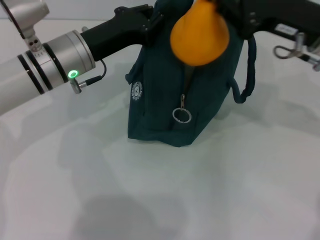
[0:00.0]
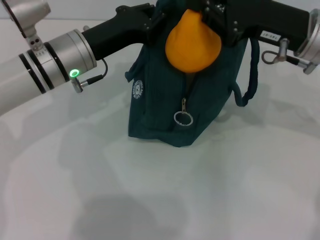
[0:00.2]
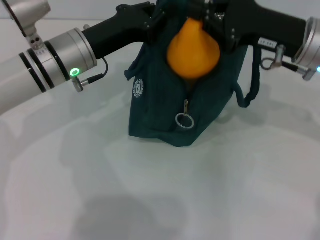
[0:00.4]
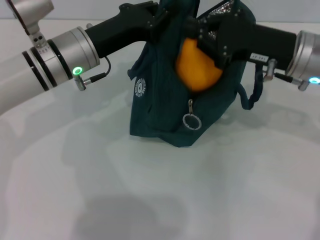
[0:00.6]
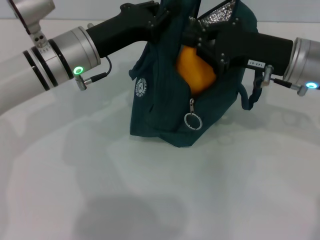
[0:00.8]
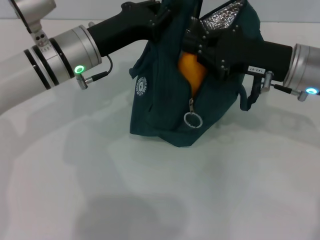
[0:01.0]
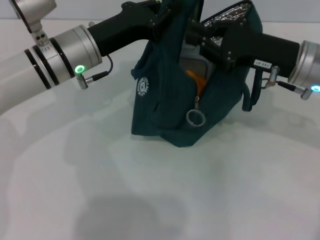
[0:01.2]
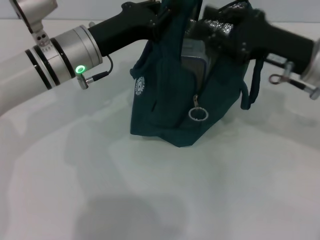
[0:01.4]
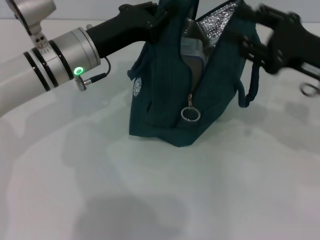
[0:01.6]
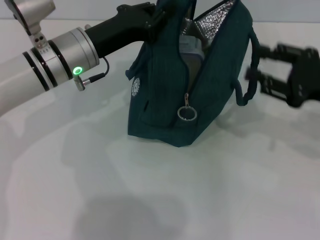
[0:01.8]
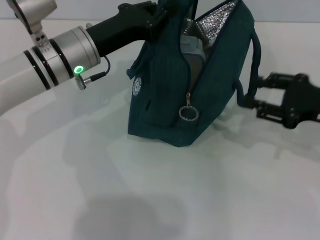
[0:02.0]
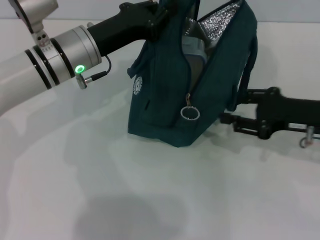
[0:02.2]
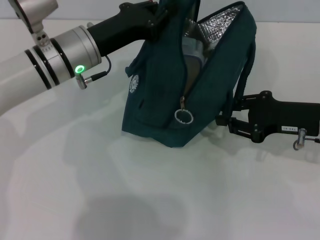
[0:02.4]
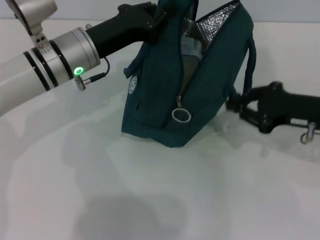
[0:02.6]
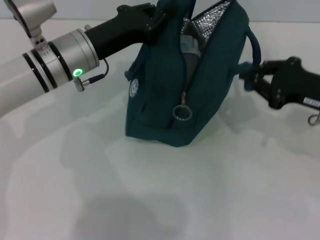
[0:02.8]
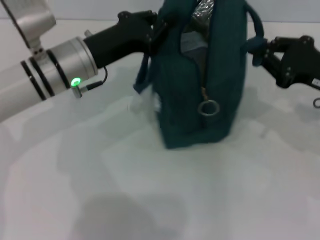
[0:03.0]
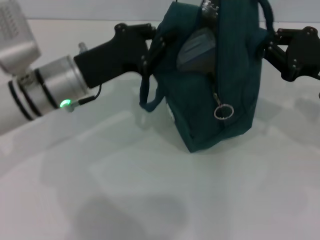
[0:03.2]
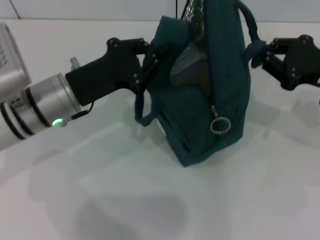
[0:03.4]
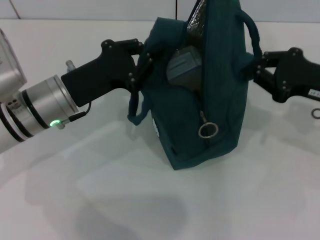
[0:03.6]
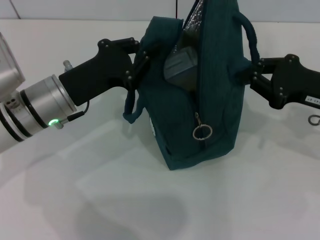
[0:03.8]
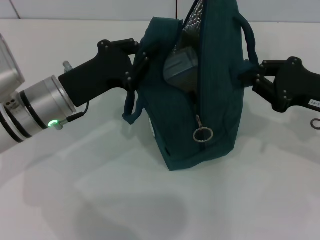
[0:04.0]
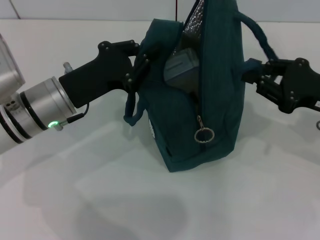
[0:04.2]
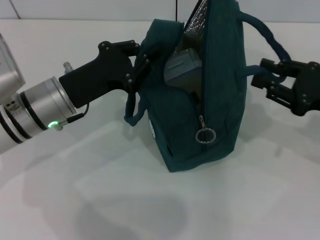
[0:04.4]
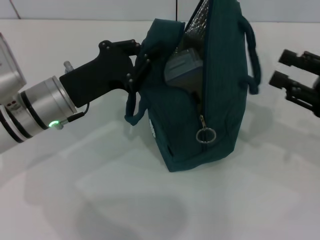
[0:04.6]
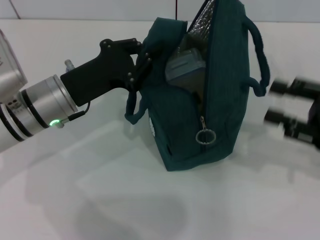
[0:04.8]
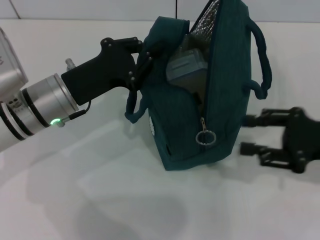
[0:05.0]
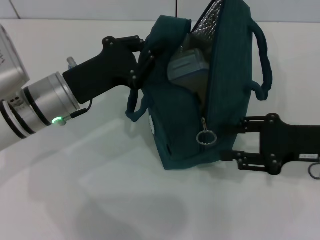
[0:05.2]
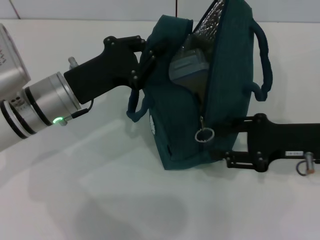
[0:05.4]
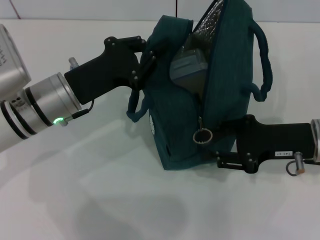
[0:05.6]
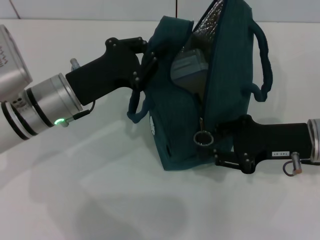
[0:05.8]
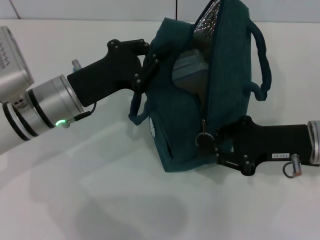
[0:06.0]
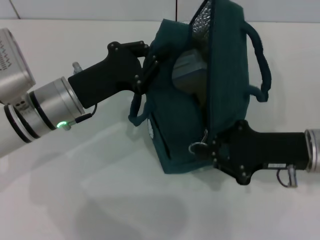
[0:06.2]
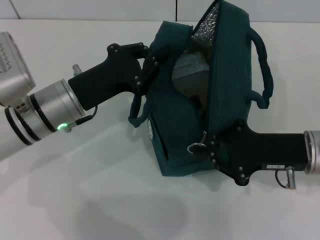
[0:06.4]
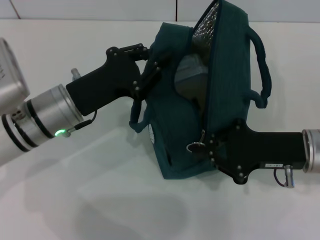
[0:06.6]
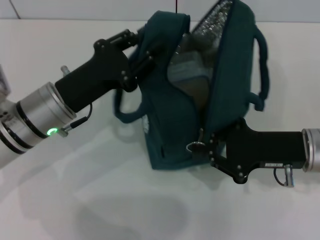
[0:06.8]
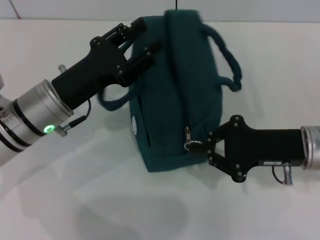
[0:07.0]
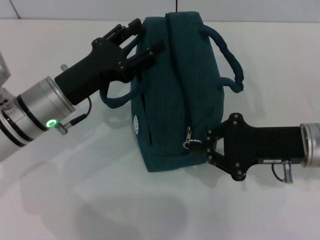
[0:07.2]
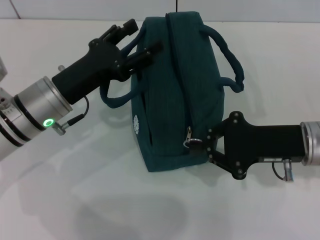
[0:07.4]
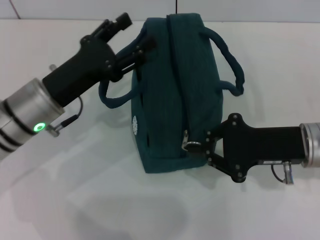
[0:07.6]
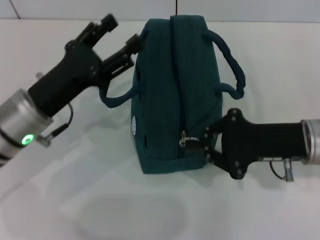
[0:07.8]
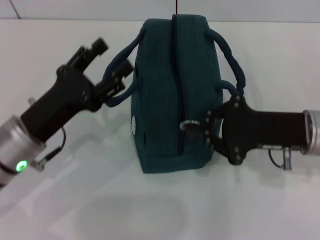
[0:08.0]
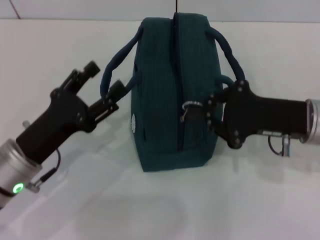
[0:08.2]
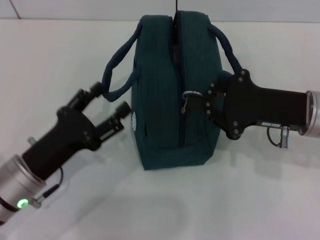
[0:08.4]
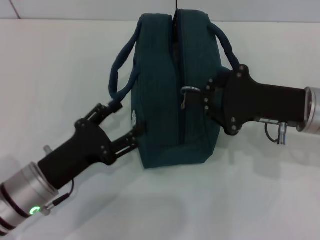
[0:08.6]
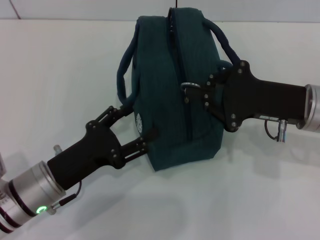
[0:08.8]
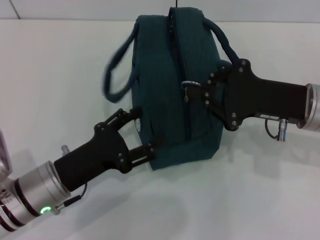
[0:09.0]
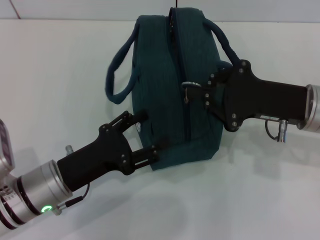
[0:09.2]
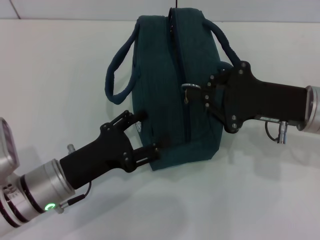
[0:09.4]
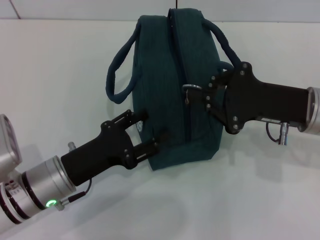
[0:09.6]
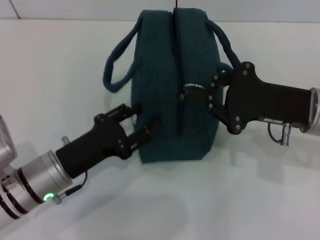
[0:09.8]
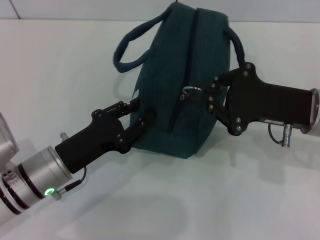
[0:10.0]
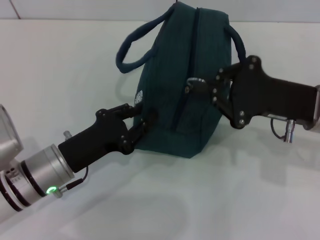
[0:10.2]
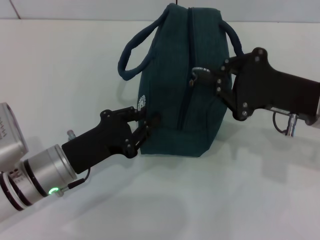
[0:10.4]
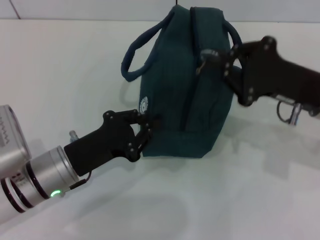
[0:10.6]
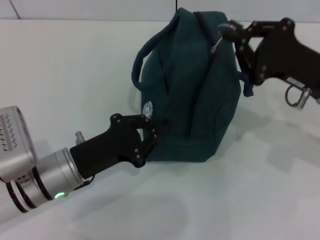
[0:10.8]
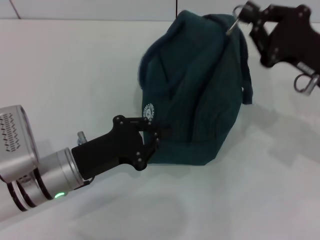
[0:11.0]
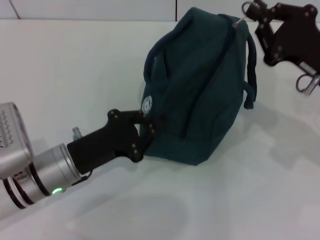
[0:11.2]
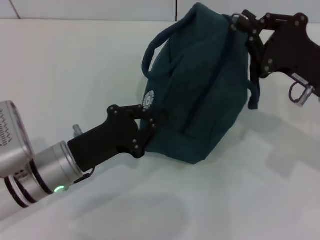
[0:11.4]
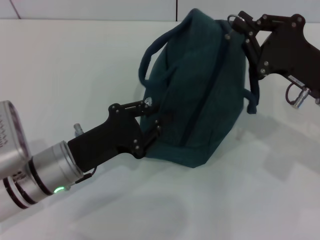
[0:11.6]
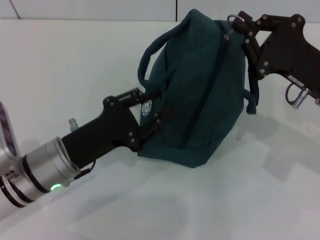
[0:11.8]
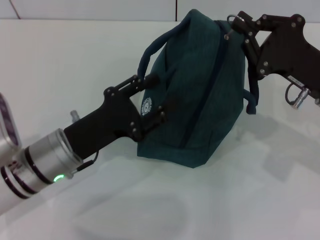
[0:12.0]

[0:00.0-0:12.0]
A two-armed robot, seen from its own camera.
Step, 0:01.6 to 0:04.6: Hold the lunch bag with your right hand.
Step, 0:04.8 to 0:07.6: Hold the lunch bag with your left hand.
0:00.0 to 0:01.6: The right gripper moves approximately 5 cm, and opens its fingers.
0:01.6 to 0:03.0: The right gripper closes up.
0:03.0 to 0:04.4: The left gripper travels backward by roughly 5 cm.
0:04.4 to 0:06.0: The right gripper heads to the left, covering some 5 cm.
0:06.0 to 0:07.6: The left gripper opens its fingers.
0:07.6 to 0:09.0: The left gripper is displaced backward and downward by roughly 10 cm.
0:09.0 to 0:10.4: The left gripper closes up.

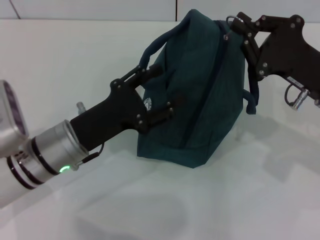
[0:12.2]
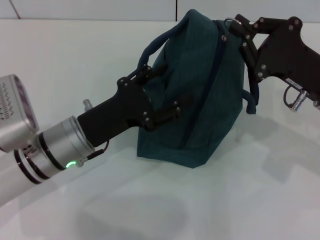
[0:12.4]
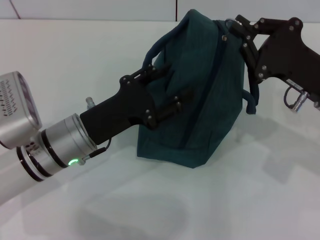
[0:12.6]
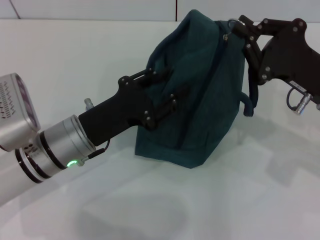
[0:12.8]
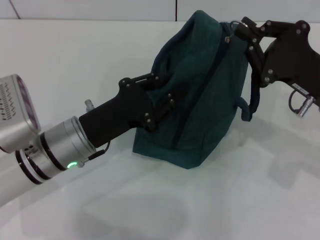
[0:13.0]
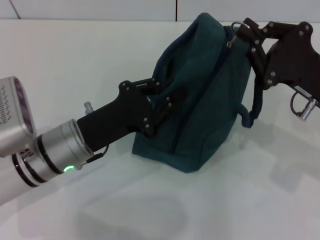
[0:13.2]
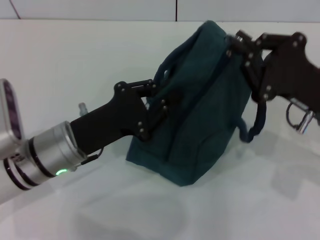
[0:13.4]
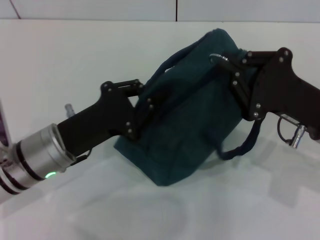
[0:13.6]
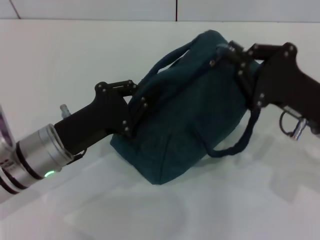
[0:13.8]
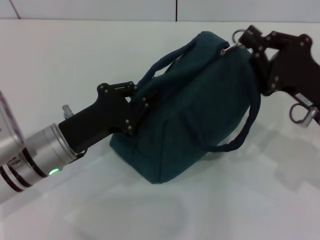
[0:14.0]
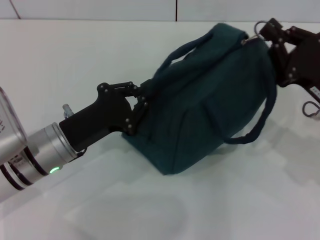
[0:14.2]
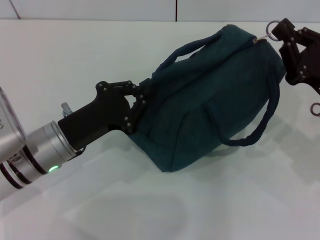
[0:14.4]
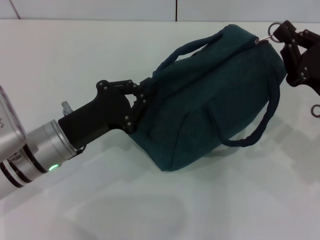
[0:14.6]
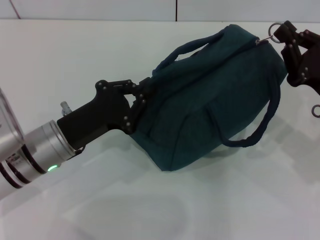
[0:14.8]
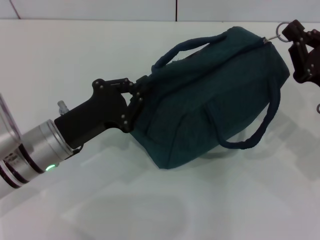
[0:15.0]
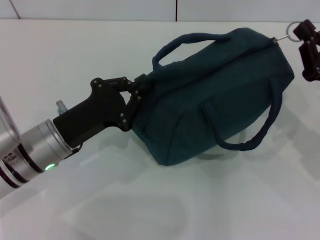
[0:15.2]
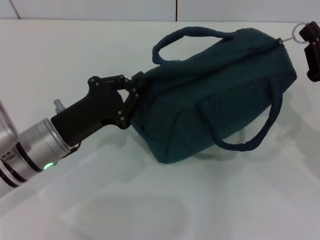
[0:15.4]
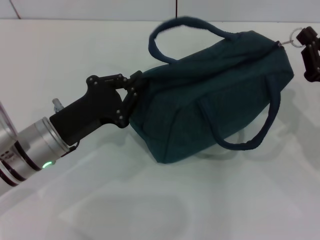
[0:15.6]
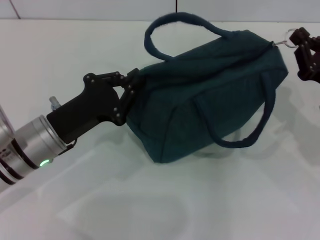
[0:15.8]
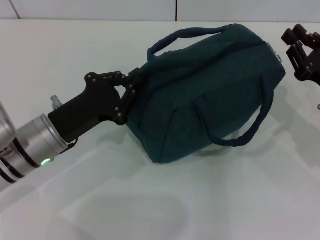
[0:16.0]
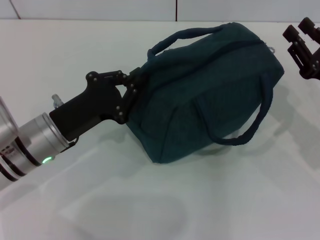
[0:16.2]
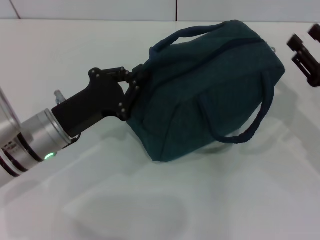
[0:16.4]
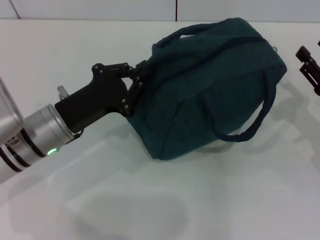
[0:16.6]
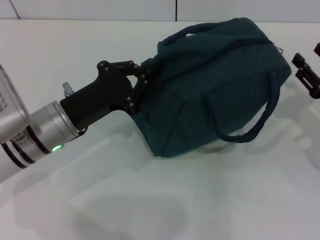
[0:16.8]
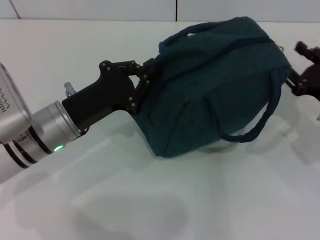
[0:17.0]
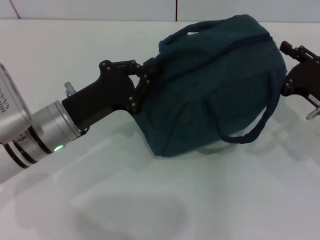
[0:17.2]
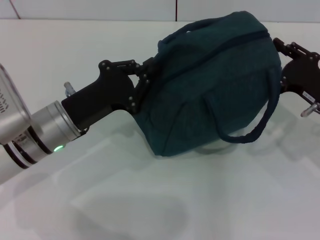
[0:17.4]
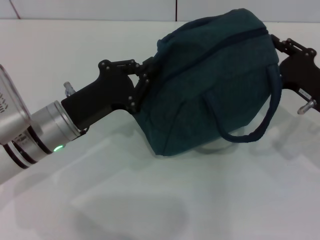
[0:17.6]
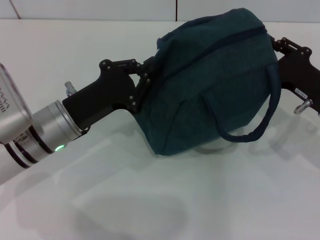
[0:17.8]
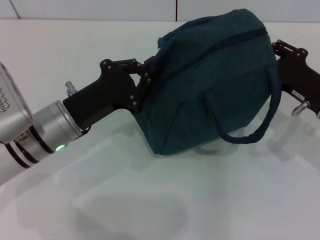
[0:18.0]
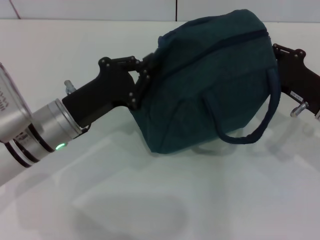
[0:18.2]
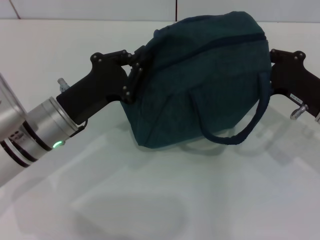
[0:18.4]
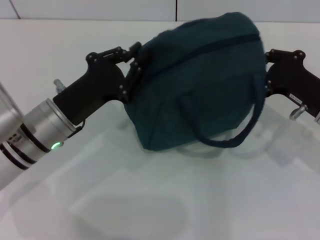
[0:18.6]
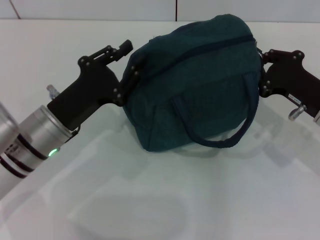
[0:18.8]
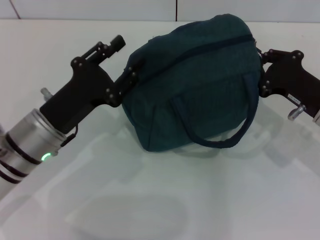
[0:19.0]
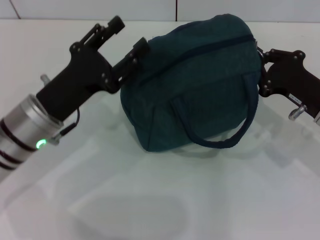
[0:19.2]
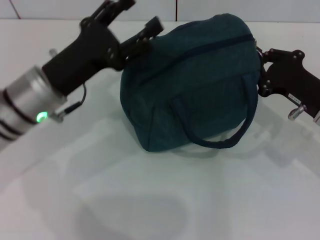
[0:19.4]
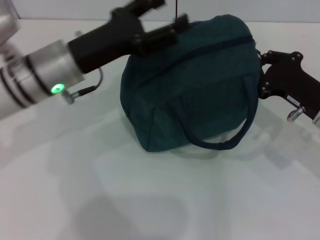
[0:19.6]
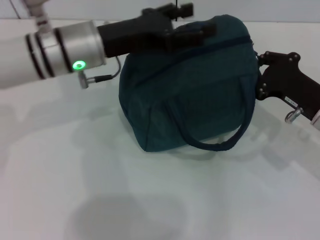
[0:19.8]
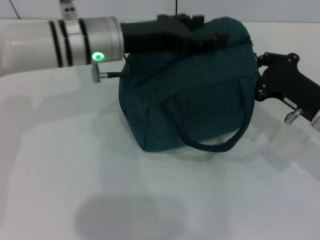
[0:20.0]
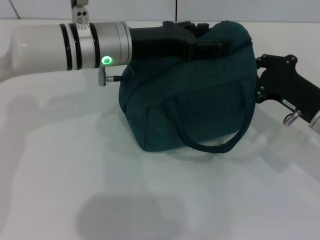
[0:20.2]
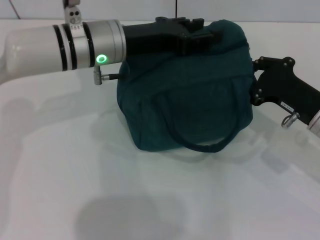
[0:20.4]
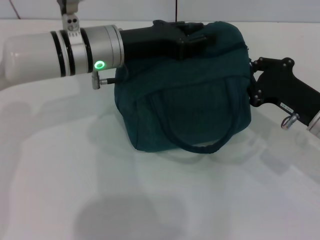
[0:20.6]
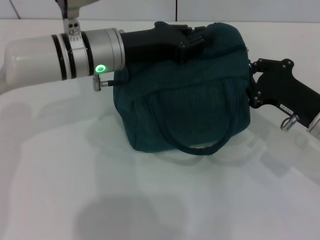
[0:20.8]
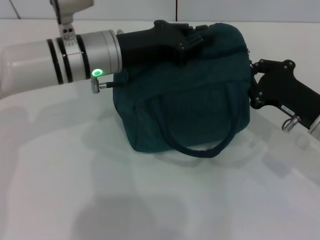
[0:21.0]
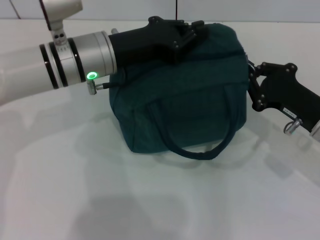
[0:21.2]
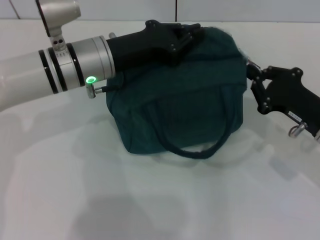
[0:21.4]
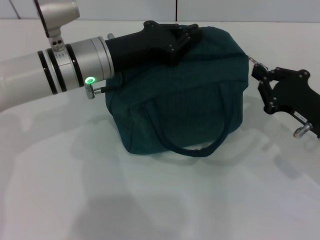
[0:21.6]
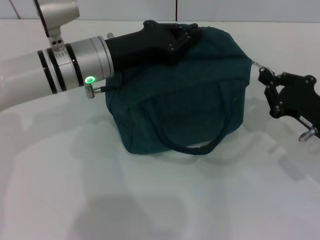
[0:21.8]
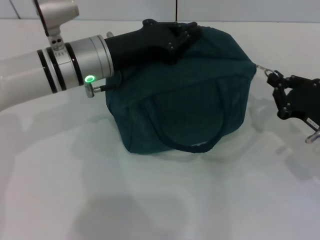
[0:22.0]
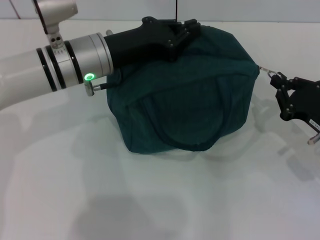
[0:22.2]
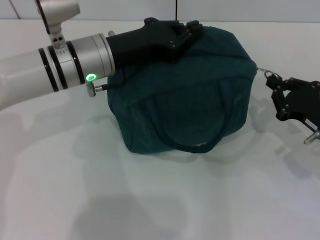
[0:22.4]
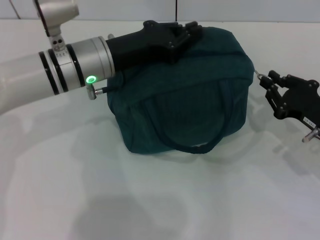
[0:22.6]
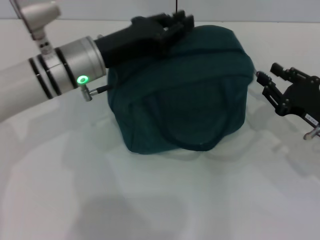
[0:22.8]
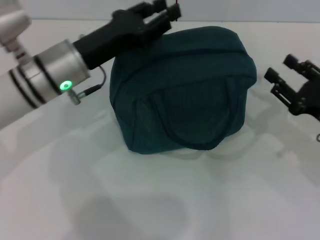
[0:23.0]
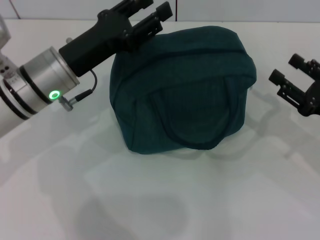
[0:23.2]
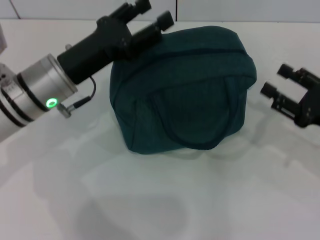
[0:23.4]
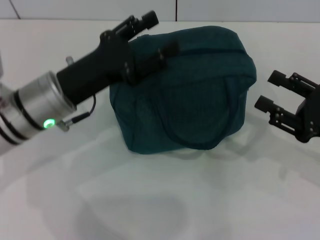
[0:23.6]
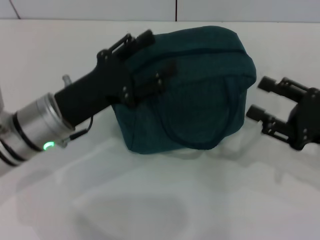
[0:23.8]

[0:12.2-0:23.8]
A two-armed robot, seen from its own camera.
Step, 0:12.2 to 0:22.6: Zip up the lunch bag with your right hand.
Step, 0:22.8 to 0:23.2: Hold the lunch bag with your left hand.
0:12.2 to 0:13.6: The left gripper closes.
0:13.6 to 0:15.0: The right gripper shifts approximately 5 cm to the right.
0:15.0 to 0:16.6: The right gripper opens its fingers.
0:16.6 to 0:18.0: The right gripper heads to the left, covering about 5 cm.
0:18.0 to 0:19.4: The right gripper closes up. The left gripper opens its fingers.
0:19.4 to 0:21.0: The left gripper moves forward and to the right, roughly 10 cm, and closes its fingers.
0:21.0 to 0:22.4: The grippers make only small movements.
0:22.4 to 0:23.8: The left gripper moves backward, some 10 cm, and opens up, while the right gripper changes place by some 5 cm, and opens up.
